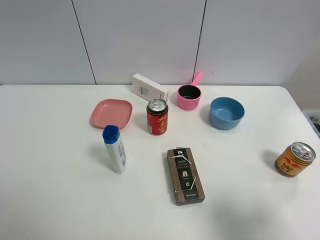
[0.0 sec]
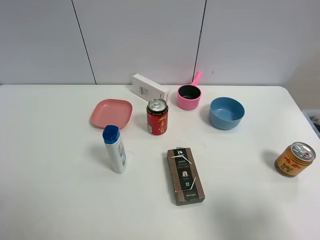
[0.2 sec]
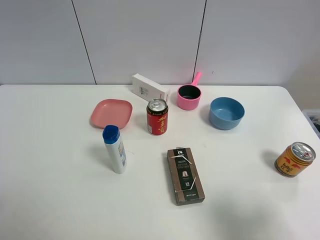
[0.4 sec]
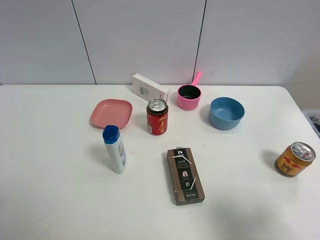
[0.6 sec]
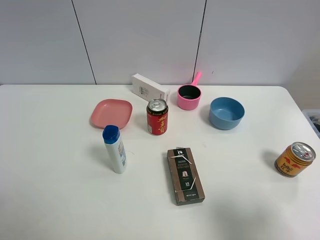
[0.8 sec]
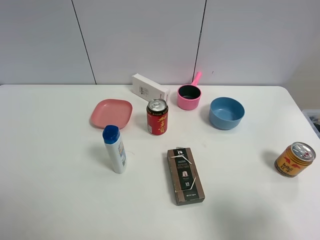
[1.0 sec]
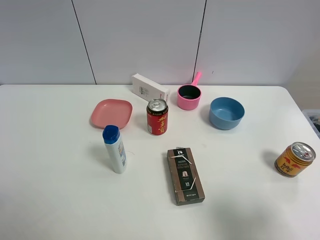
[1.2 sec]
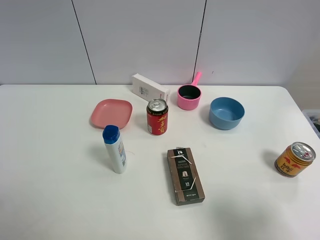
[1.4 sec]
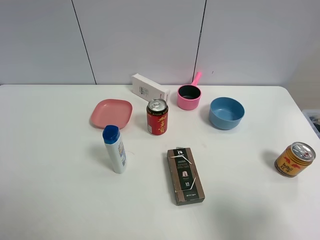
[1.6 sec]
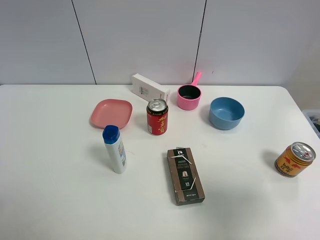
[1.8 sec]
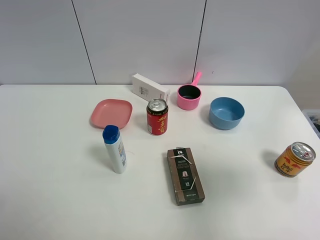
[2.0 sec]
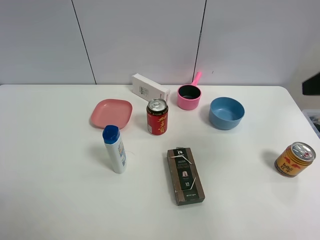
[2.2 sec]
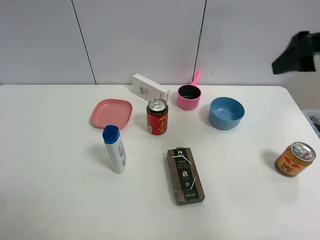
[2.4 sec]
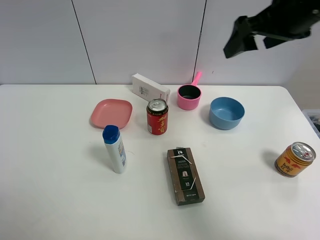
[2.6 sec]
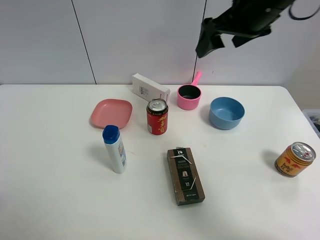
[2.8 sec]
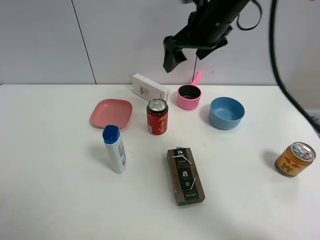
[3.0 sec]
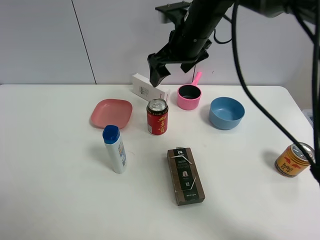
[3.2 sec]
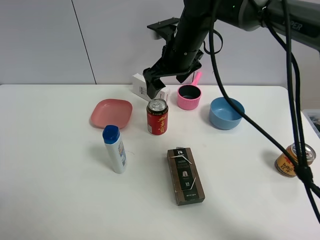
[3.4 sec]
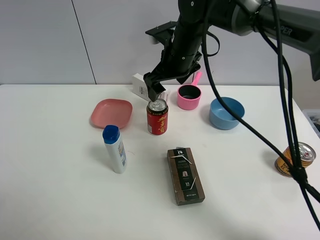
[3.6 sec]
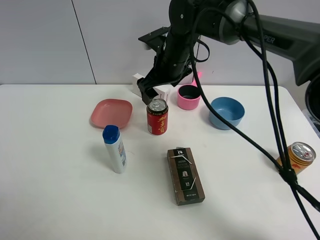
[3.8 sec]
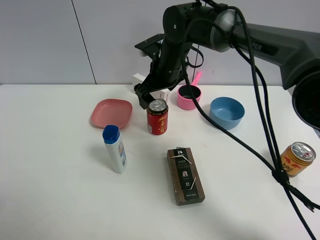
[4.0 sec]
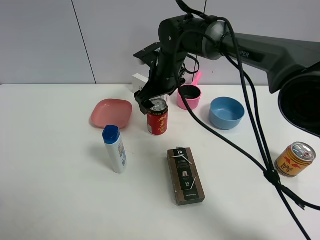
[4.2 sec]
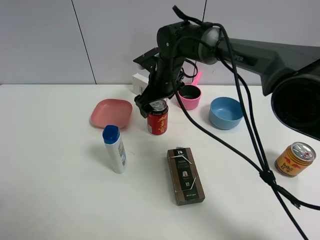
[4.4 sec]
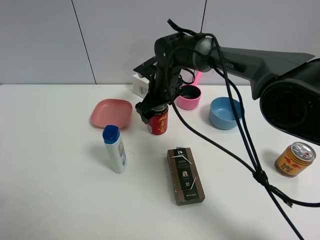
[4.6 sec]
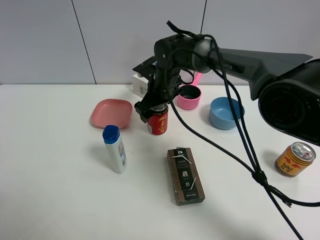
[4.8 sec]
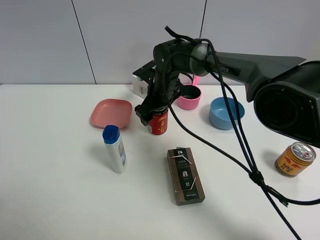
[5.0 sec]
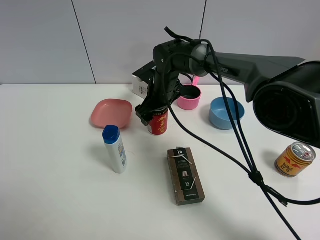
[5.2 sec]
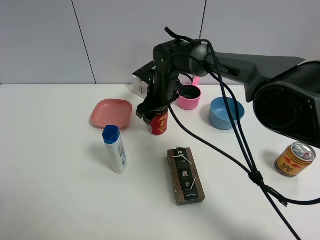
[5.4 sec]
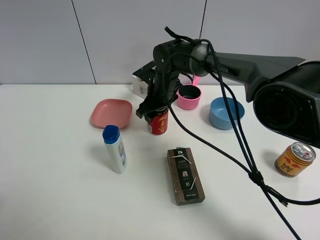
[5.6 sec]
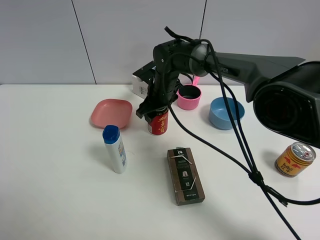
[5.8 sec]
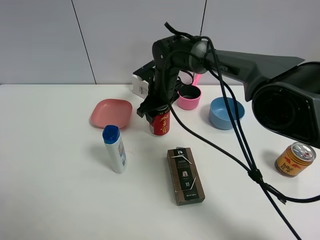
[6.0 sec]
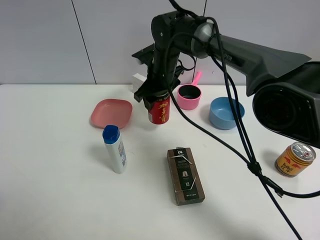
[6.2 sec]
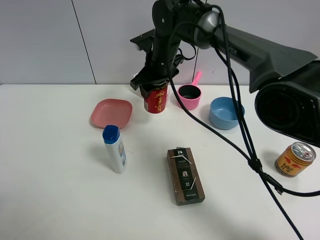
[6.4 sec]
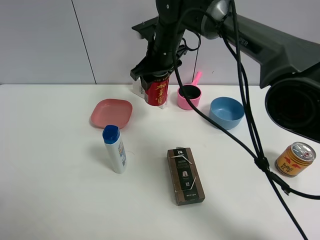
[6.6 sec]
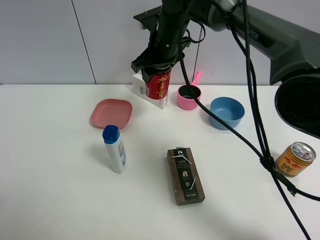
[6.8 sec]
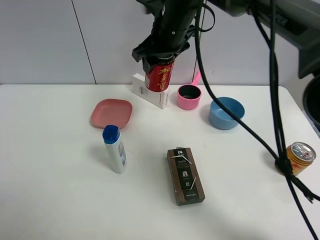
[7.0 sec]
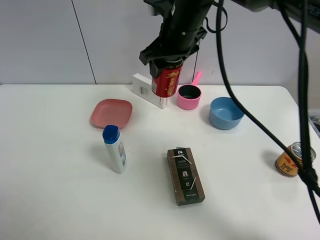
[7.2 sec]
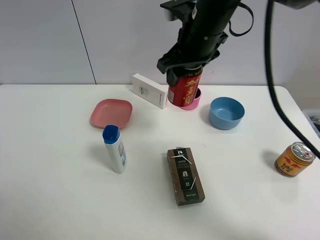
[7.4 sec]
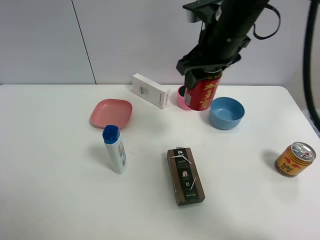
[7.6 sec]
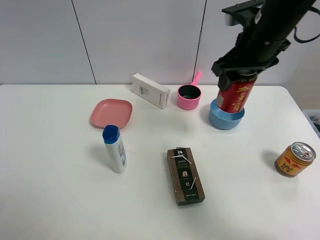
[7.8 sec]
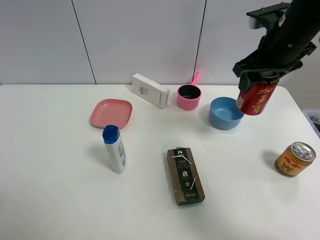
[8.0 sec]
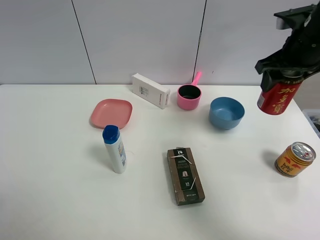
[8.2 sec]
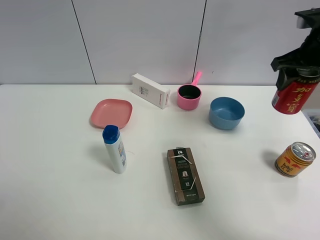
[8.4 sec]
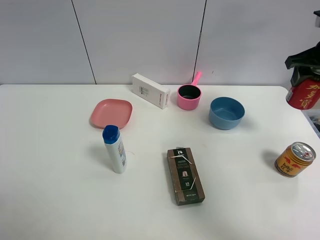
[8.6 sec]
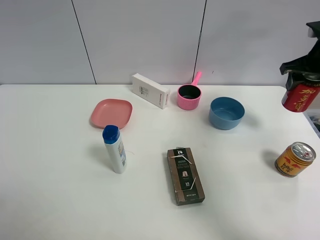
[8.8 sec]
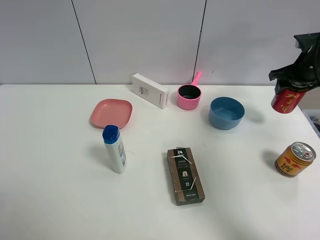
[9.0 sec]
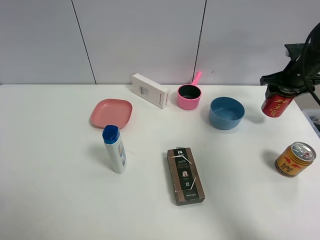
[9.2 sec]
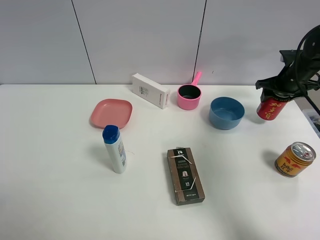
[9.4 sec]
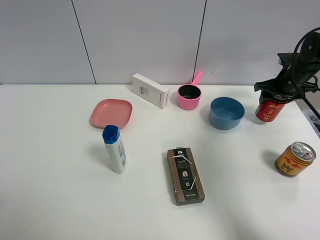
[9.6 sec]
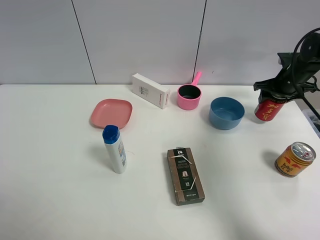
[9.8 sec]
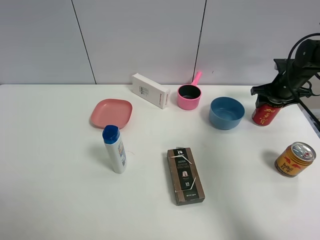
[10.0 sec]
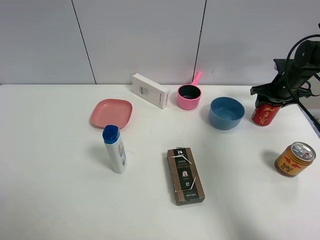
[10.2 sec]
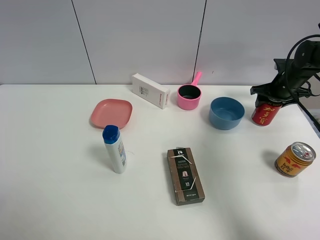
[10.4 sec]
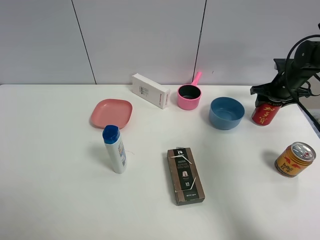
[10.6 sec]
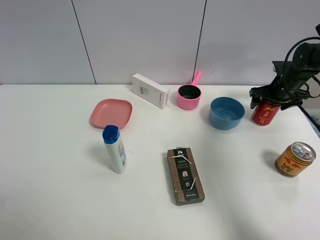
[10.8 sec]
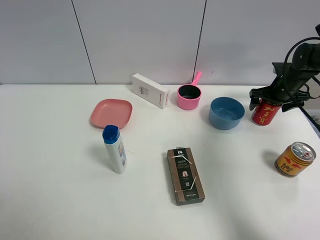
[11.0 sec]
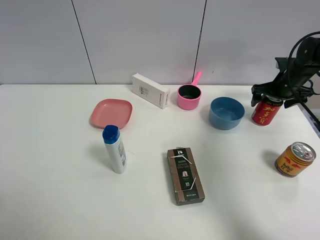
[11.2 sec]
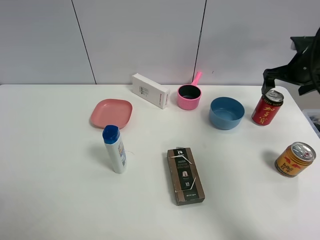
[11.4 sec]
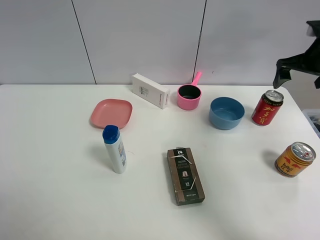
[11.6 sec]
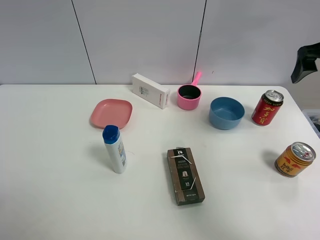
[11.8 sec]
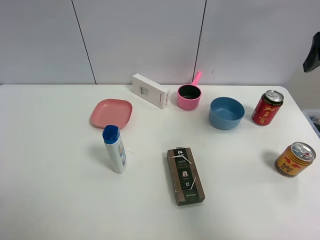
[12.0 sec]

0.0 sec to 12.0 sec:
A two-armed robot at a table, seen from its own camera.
Task of the whole recording: the gripper move the object.
Step, 0.0 sec to 5.4 sec: Grasp the Jia Duo Bao with the right gripper.
Step, 5.6 sec to 11.2 sec: Place the Jia Duo Bao on the table with the right gripper.
0.0 sec to 1.6 sec: Both grippers stay put.
1.6 sec to 3.0 sec: The right gripper travels forward and to the left by about 40 cm.
3.0 sec to 4.4 sec: The right gripper travels downward and to the left by approximately 15 cm.
4.4 sec to 6.0 sec: The right gripper closes.
6.0 sec to 7.6 sec: The right gripper shifts about 20 cm upward, to the right and backward.
7.6 sec to 9.0 sec: The right gripper goes some 25 cm to the right.
9.0 sec to 10.4 sec: The right gripper heads downward, covering about 10 cm.
10.4 sec to 12.0 sec: The right gripper is displaced upward and backward by approximately 25 cm, and opens its fingers.

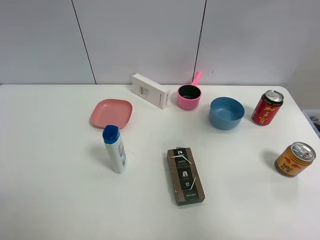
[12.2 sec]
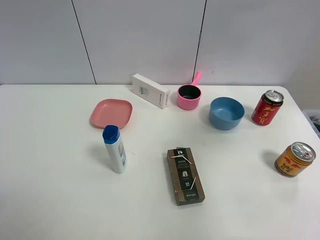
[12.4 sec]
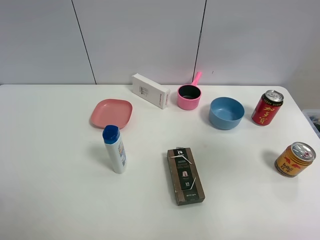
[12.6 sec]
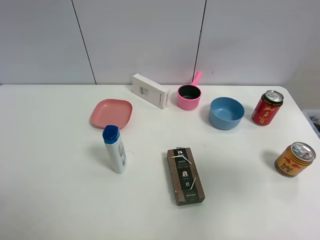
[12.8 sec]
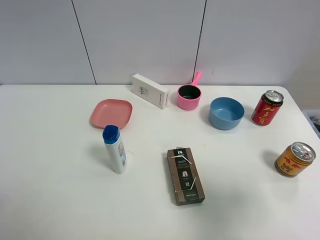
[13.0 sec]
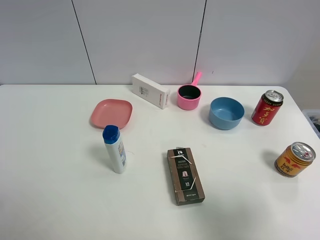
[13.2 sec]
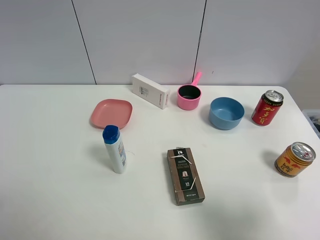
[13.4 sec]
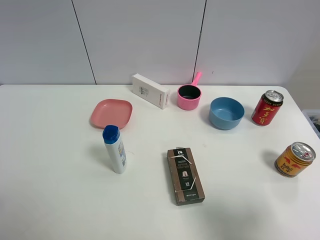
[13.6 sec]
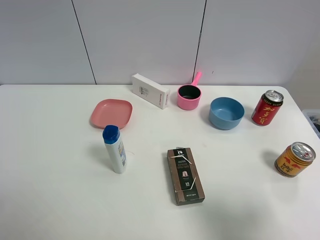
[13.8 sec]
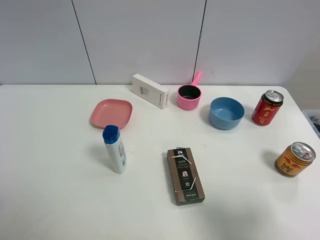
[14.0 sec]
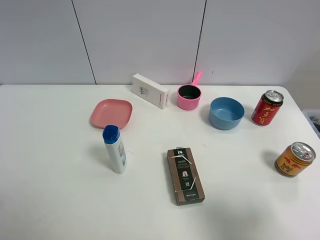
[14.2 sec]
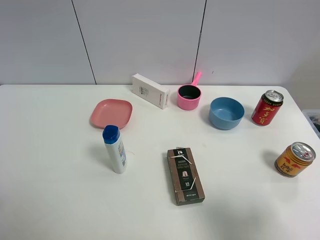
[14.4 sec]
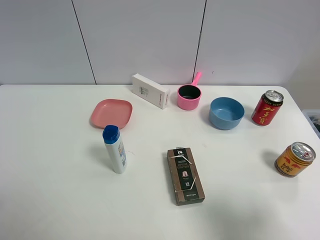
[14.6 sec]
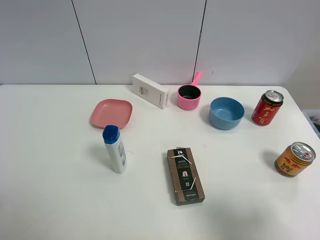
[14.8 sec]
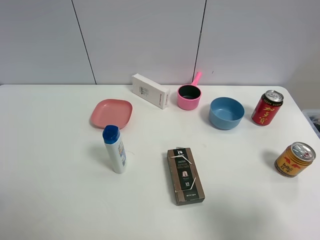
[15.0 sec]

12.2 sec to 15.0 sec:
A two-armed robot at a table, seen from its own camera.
Task of the whole recording: the gripper move the object.
12.2 sec to 13.6 sec: The right gripper heads backward and downward, covering some 30 cm.
13.6 sec to 15.0 sec: The two grippers keep their place.
